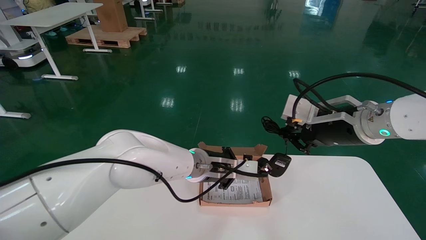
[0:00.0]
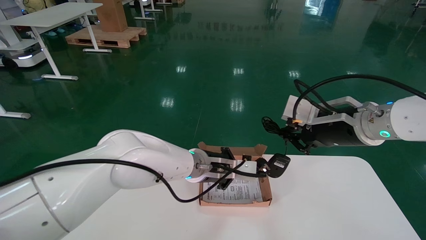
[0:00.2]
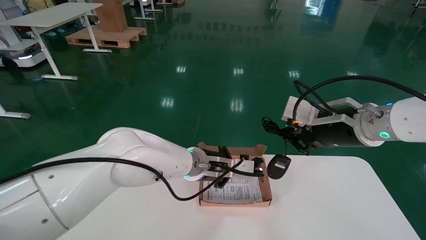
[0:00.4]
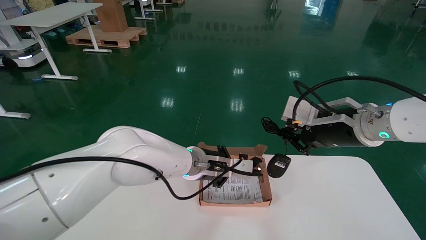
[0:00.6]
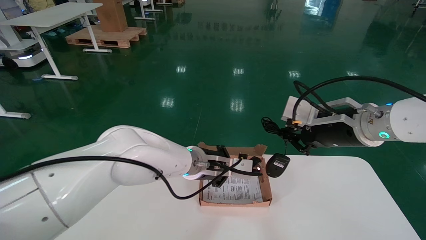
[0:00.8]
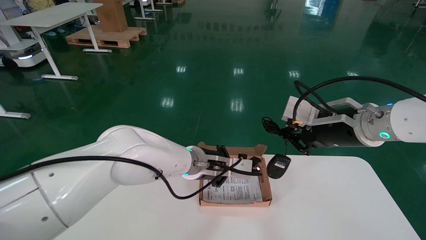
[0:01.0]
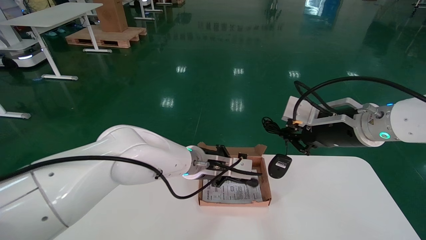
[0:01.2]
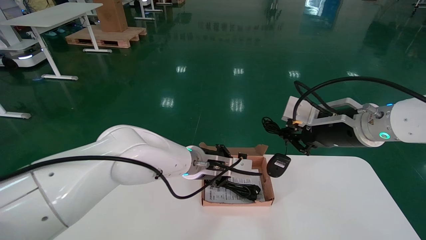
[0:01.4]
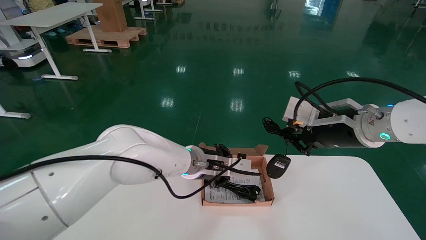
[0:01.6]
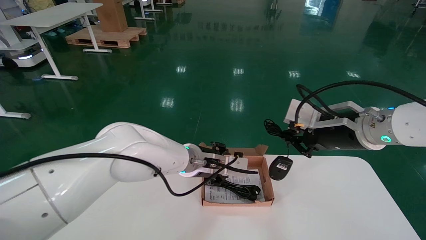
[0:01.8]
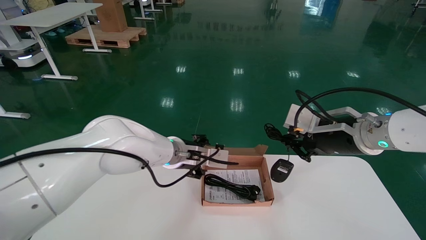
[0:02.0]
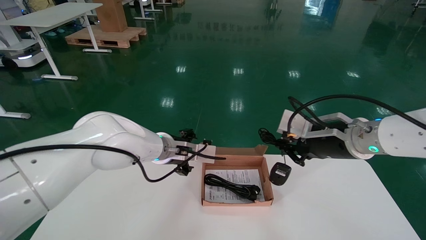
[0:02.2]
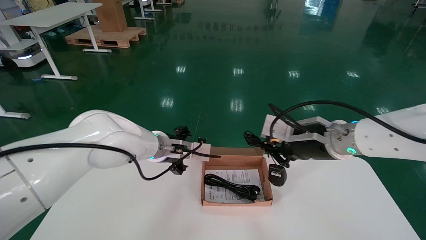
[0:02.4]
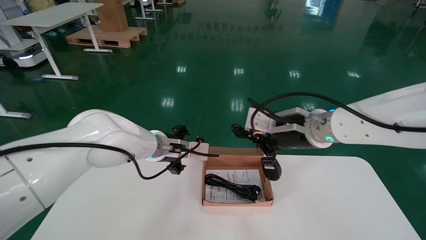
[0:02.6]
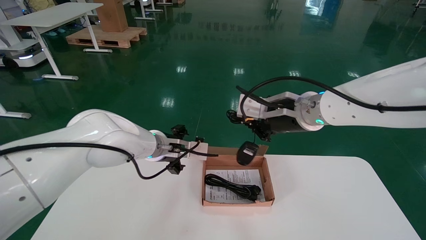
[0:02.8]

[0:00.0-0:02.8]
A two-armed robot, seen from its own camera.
Step, 0:00.0 to 0:02.8: Place the mouse and power cord into the box.
0:00.0 to 0:01.4: The left gripper ends up some 5 cm from where it was.
